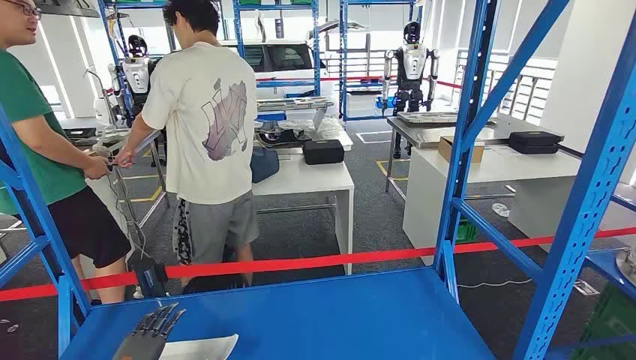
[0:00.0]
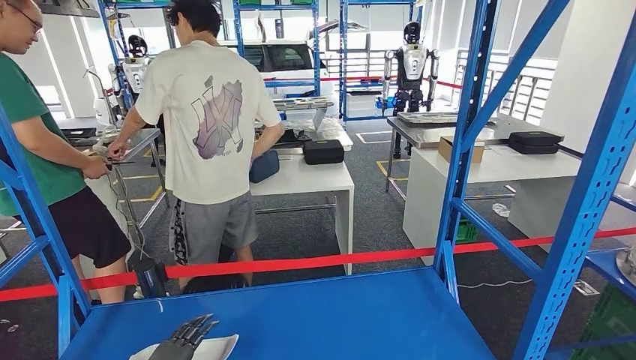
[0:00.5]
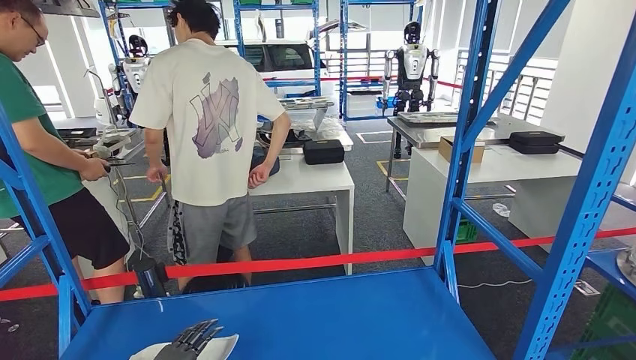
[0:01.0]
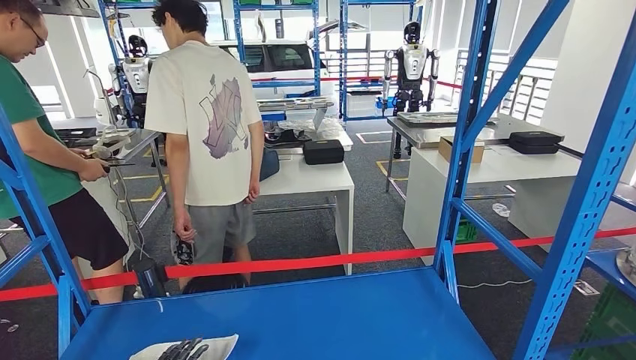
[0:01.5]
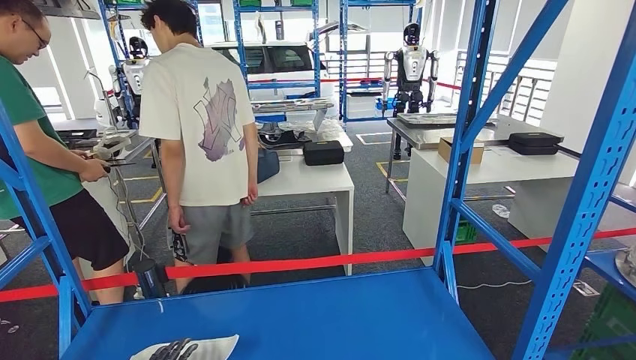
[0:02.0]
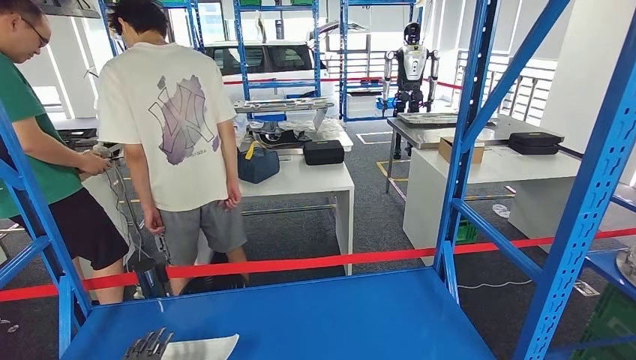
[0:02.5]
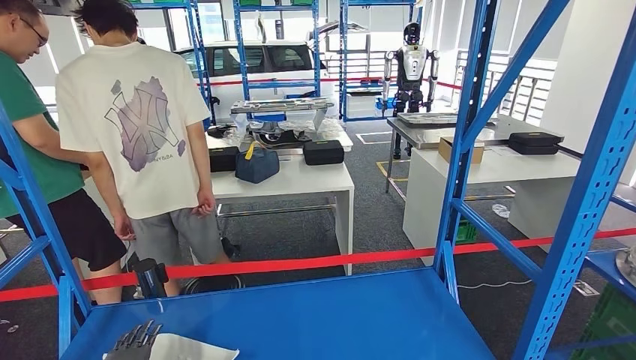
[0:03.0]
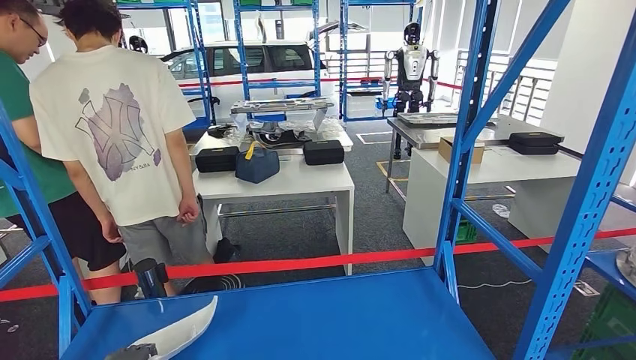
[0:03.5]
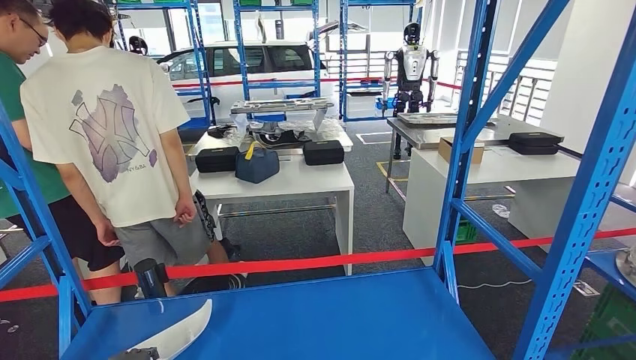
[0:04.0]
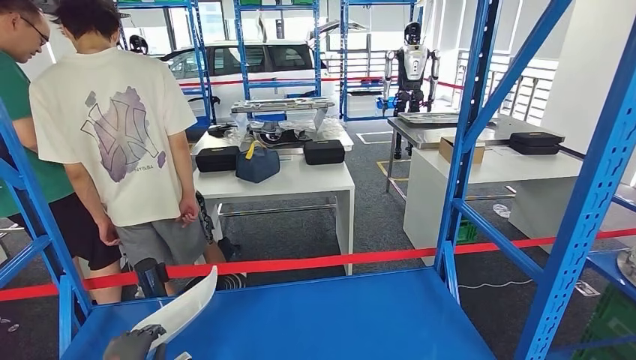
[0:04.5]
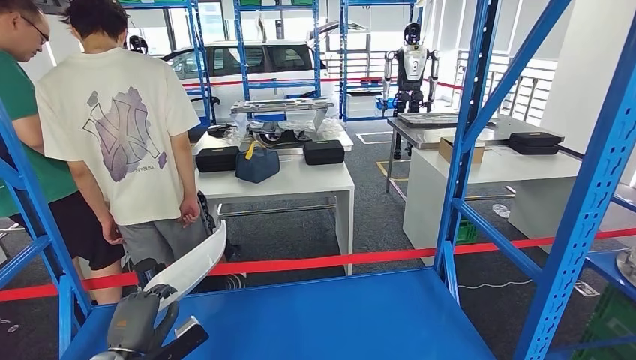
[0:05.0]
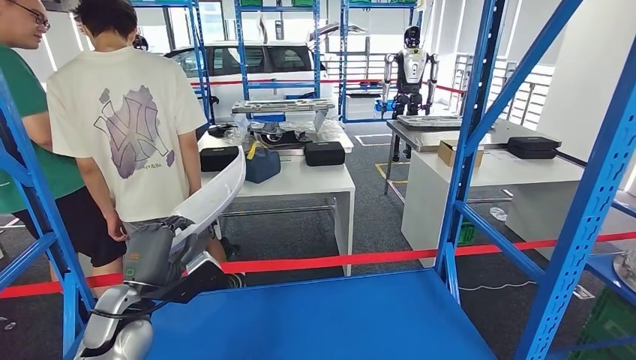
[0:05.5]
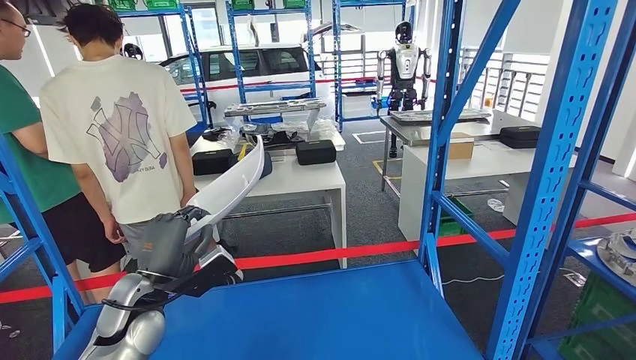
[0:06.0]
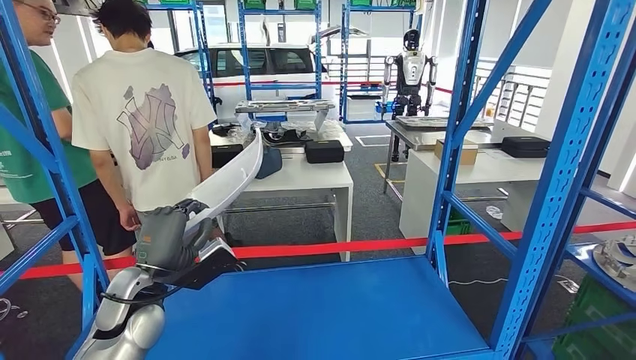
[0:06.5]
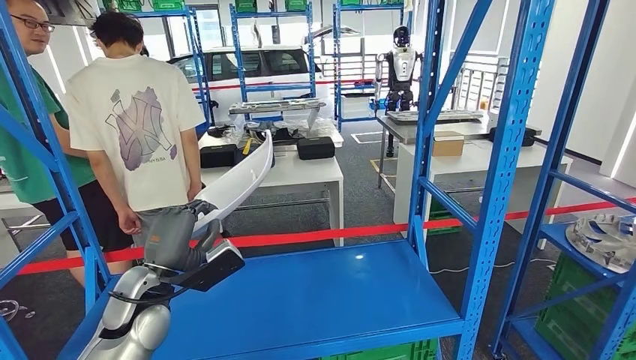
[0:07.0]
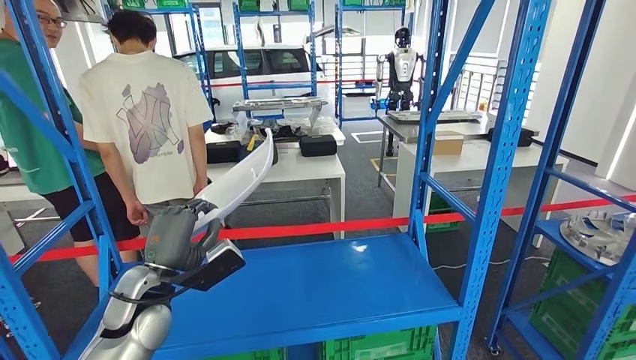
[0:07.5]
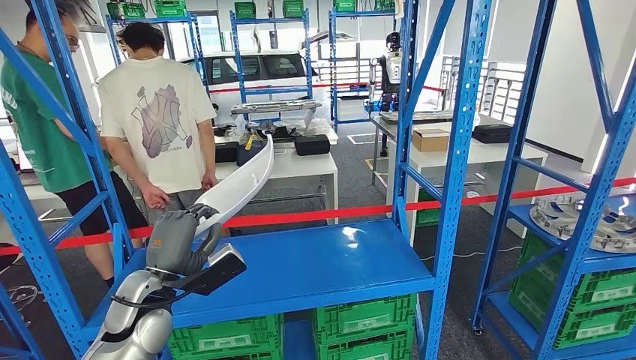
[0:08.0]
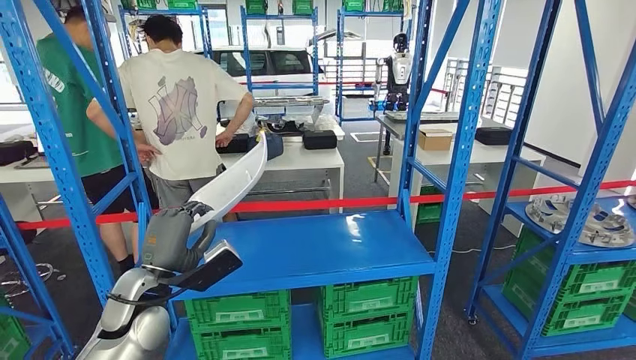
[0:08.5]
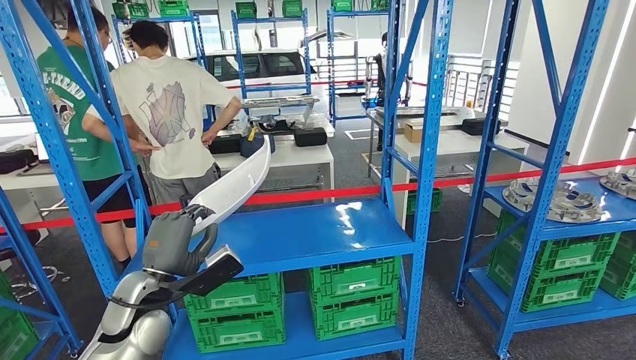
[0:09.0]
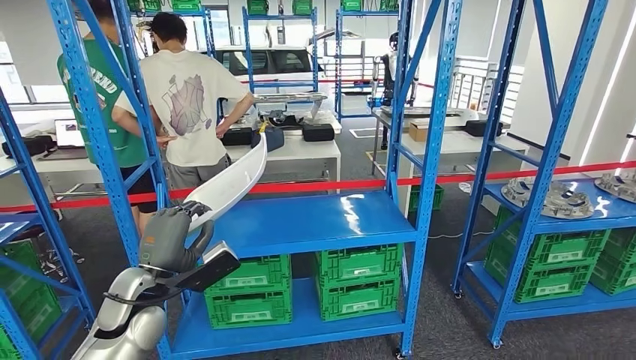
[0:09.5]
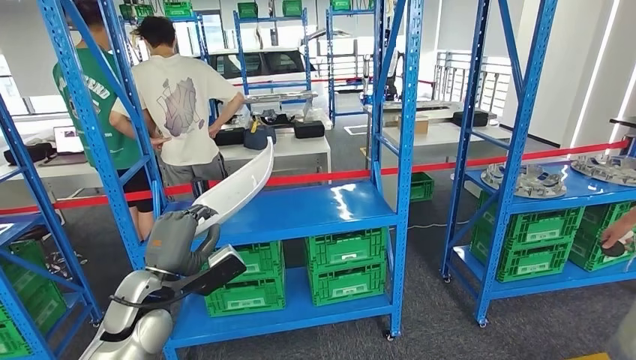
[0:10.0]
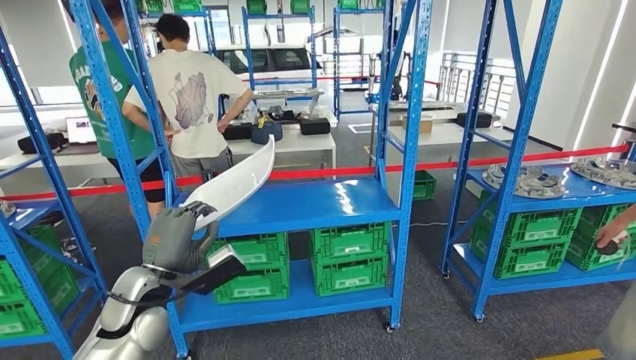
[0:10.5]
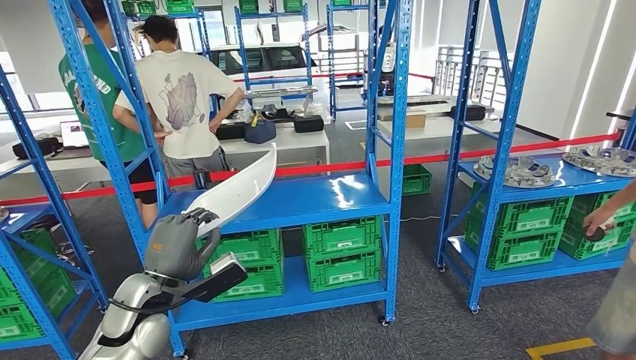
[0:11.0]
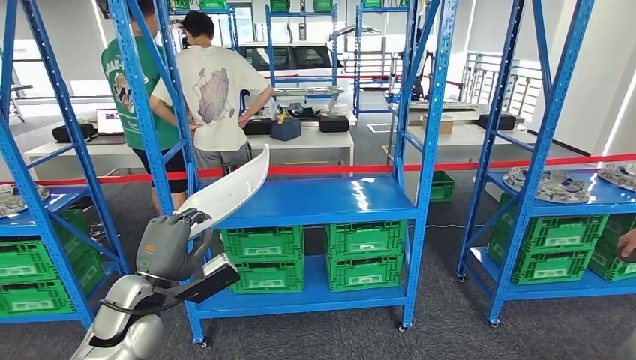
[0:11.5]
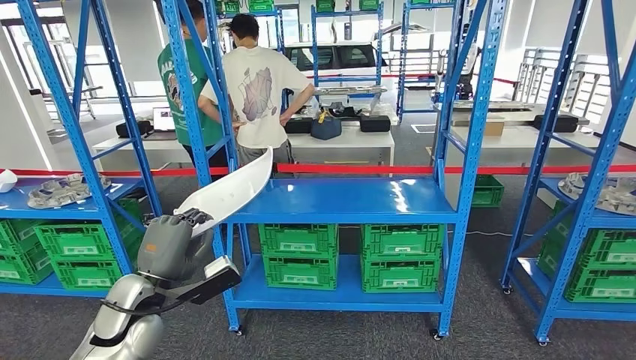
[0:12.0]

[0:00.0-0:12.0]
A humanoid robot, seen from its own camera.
Step, 0:00.0 to 0:05.5: Pick up the small component from the shelf.
0:02.0 to 0:04.0: The hands stay close to where they were, moving slightly.

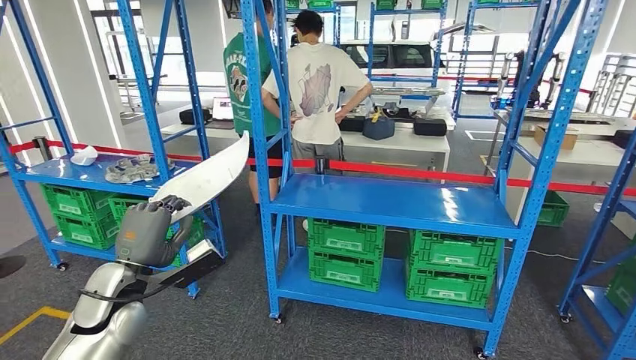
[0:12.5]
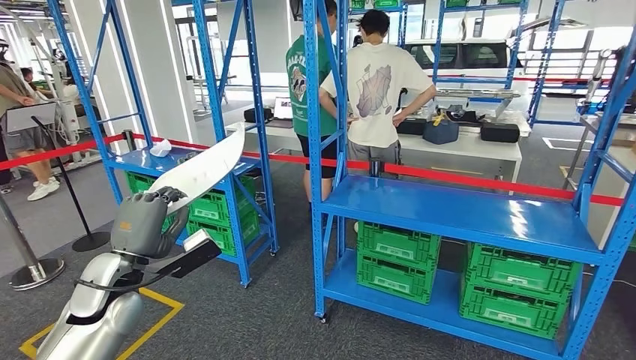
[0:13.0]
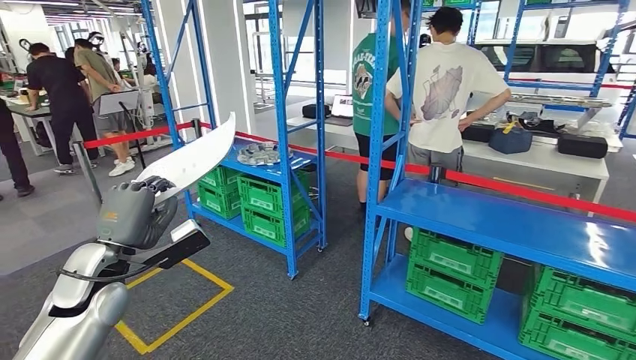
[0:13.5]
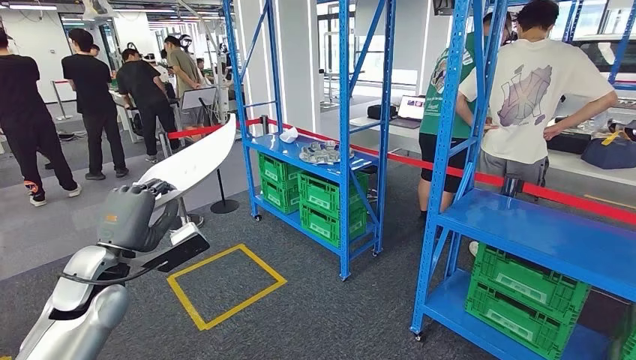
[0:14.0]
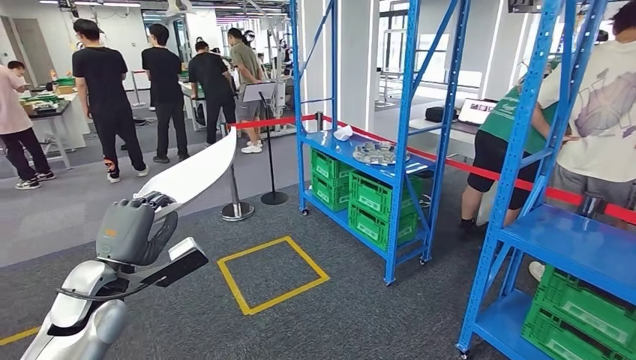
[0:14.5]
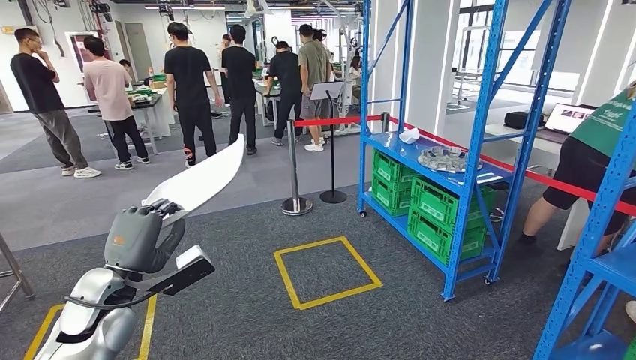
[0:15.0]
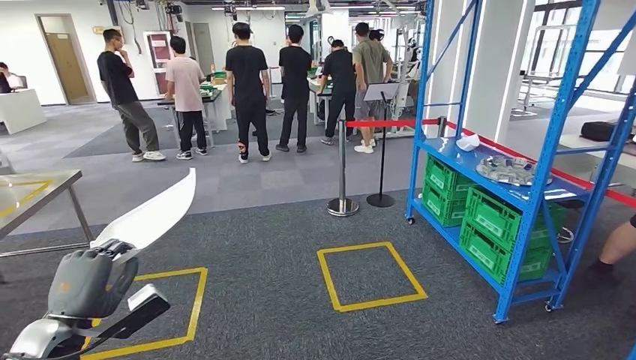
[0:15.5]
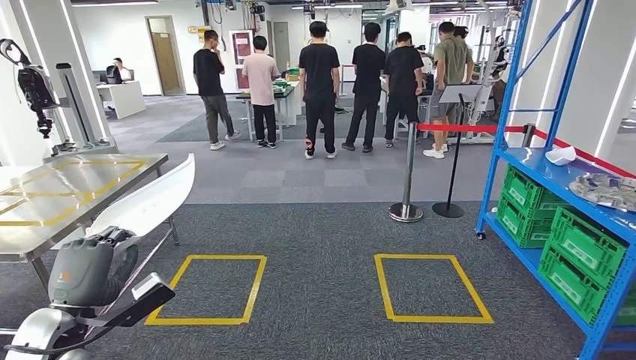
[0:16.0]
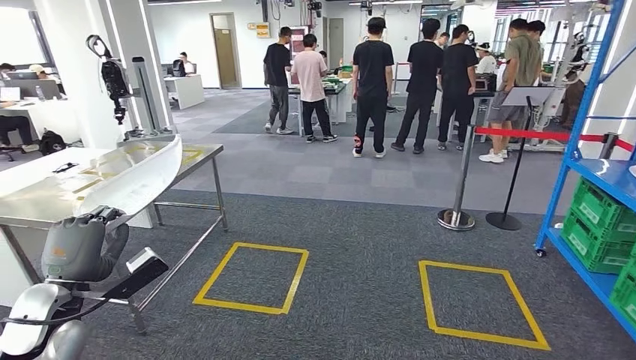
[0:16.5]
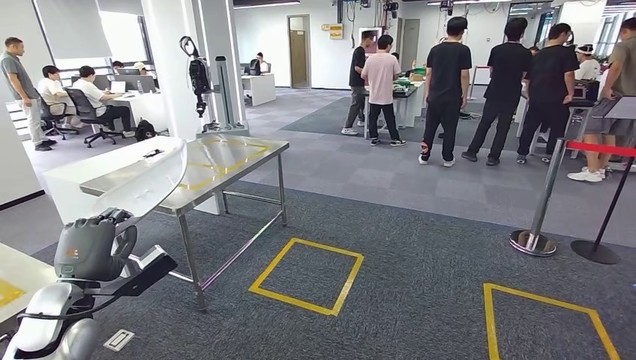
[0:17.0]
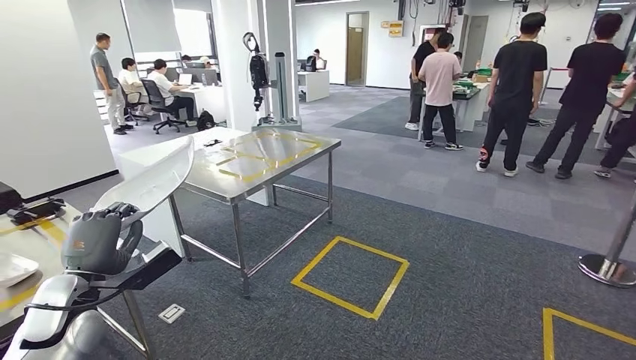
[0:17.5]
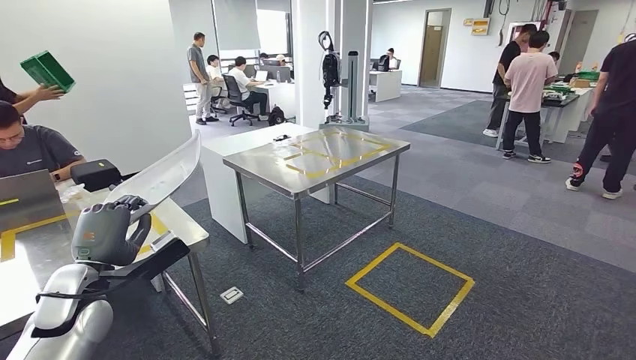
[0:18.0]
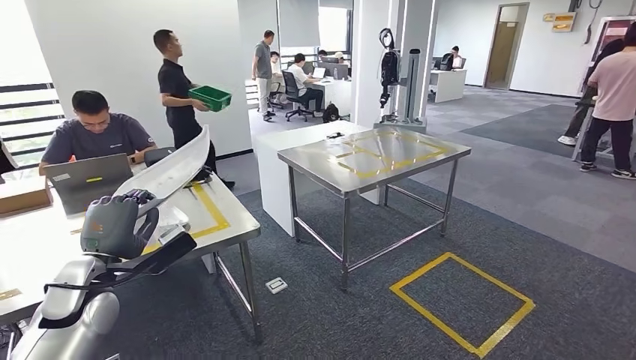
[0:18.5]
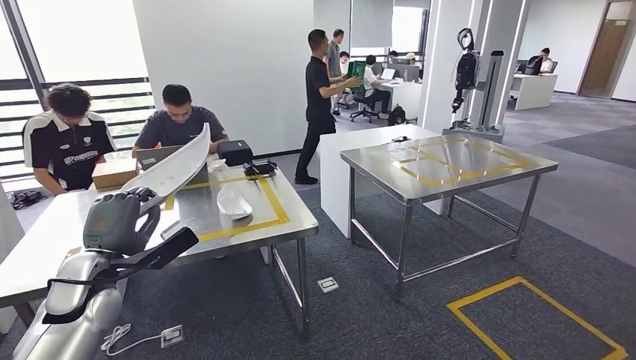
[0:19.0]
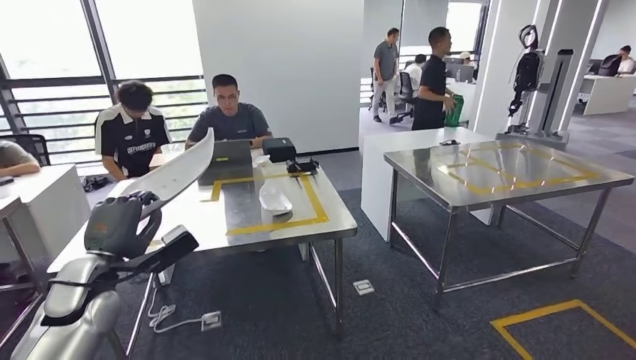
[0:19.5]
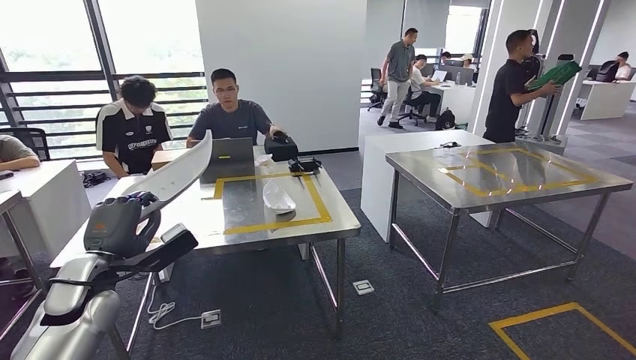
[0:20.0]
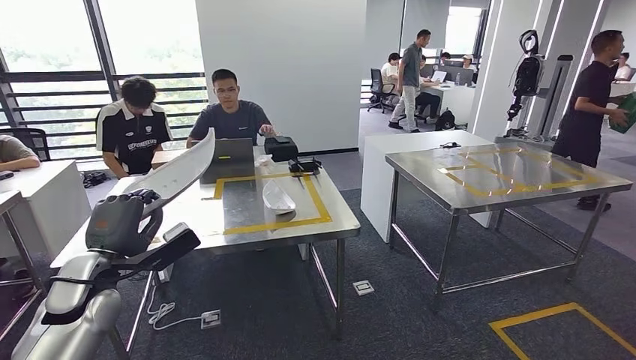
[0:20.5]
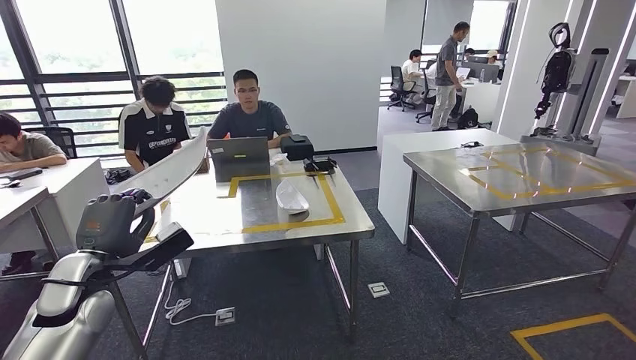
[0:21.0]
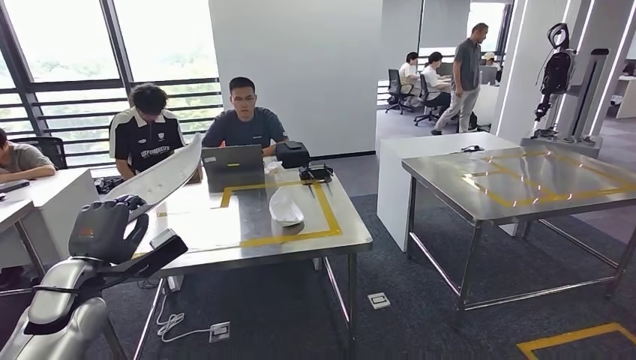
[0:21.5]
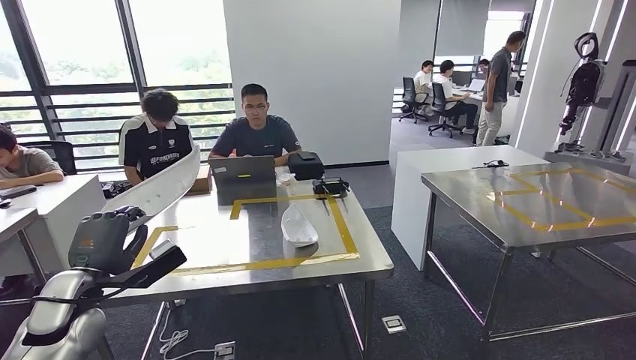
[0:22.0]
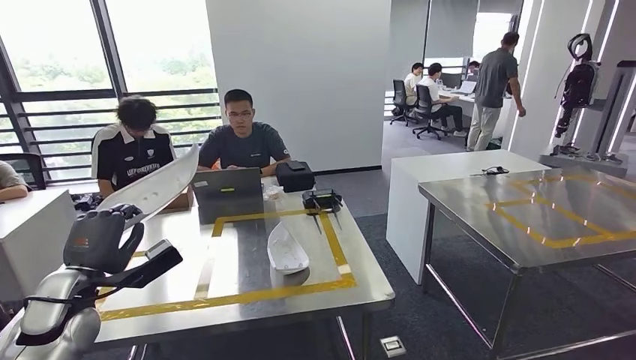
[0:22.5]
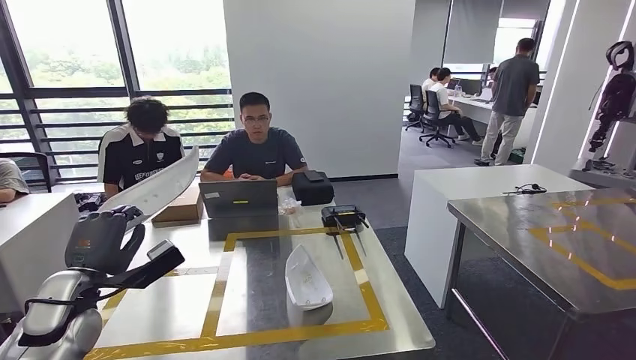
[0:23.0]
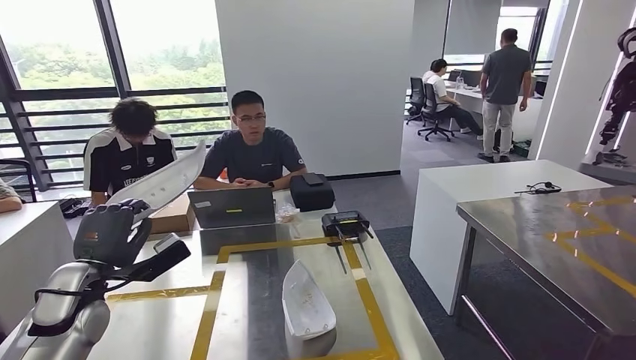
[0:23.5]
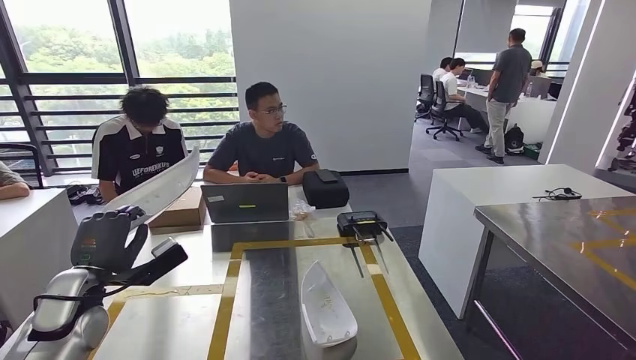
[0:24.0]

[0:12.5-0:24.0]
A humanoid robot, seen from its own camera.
Step, 0:12.5 to 0:23.5: Move the small component to the workbench.
